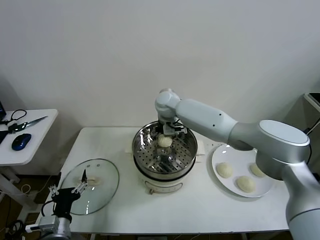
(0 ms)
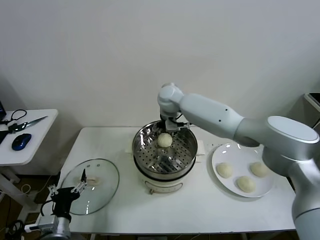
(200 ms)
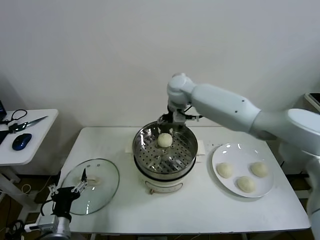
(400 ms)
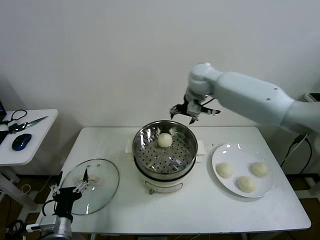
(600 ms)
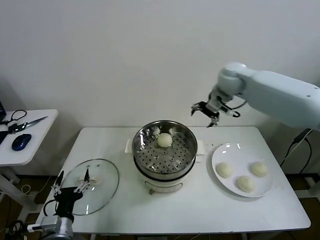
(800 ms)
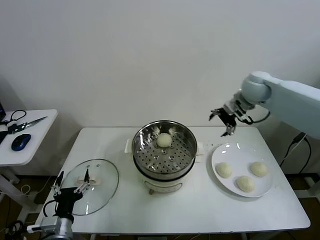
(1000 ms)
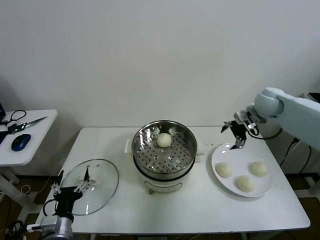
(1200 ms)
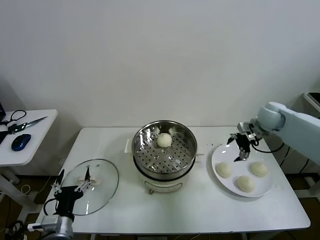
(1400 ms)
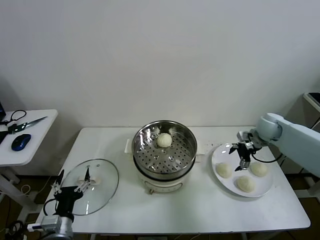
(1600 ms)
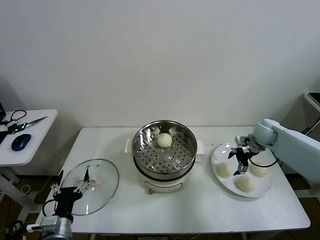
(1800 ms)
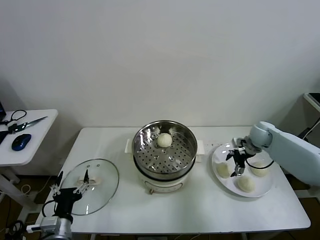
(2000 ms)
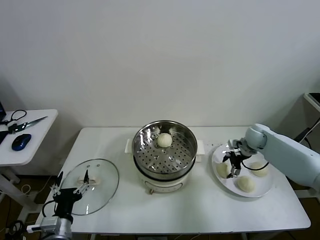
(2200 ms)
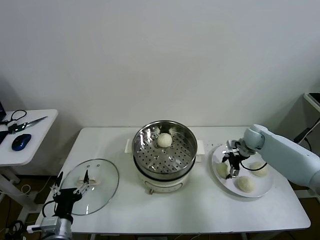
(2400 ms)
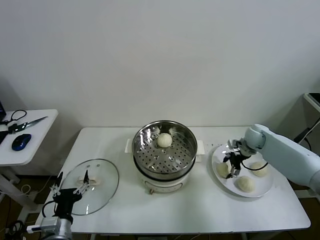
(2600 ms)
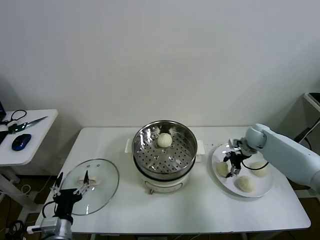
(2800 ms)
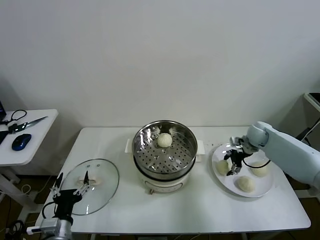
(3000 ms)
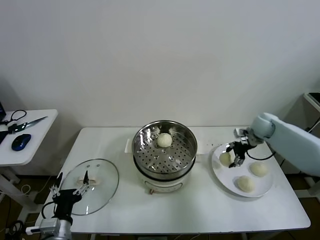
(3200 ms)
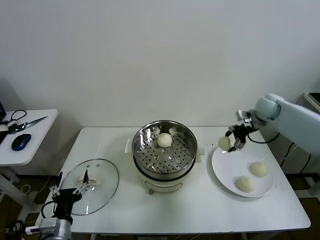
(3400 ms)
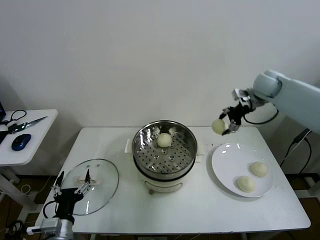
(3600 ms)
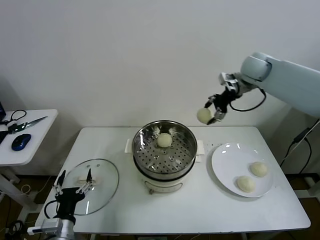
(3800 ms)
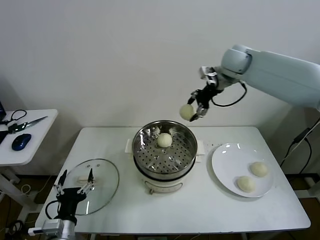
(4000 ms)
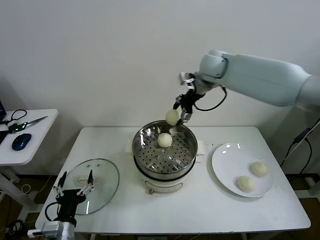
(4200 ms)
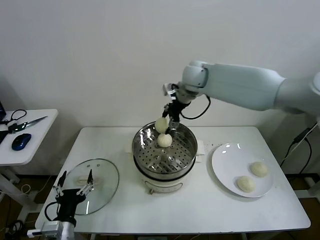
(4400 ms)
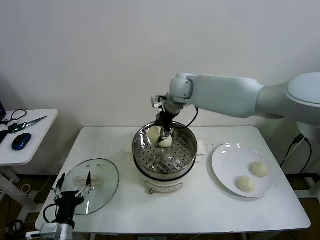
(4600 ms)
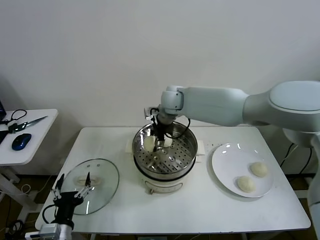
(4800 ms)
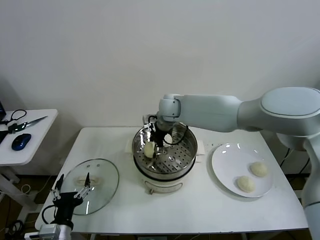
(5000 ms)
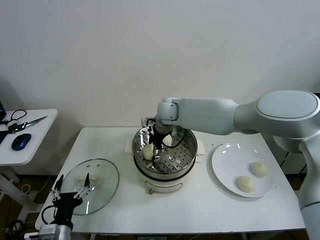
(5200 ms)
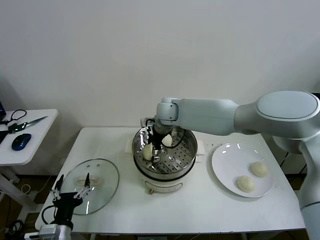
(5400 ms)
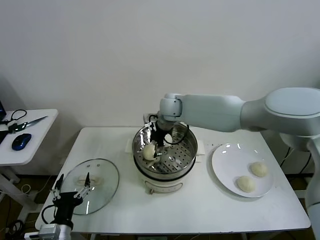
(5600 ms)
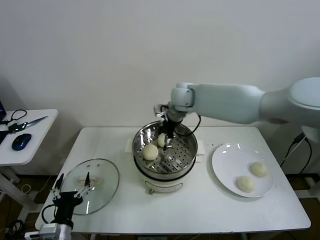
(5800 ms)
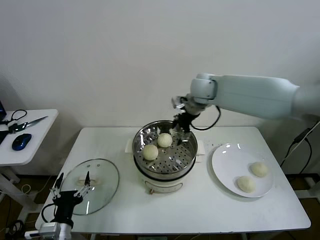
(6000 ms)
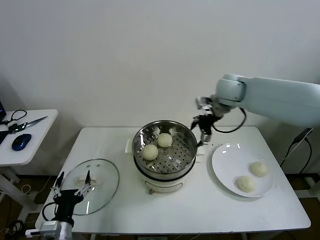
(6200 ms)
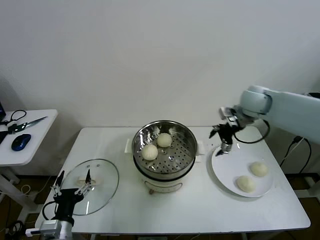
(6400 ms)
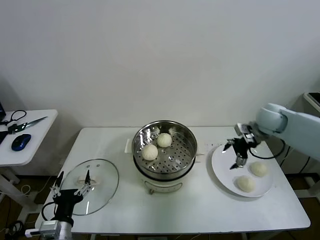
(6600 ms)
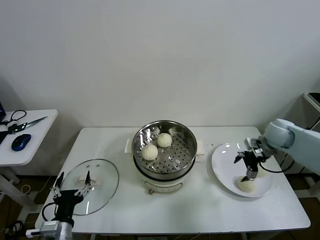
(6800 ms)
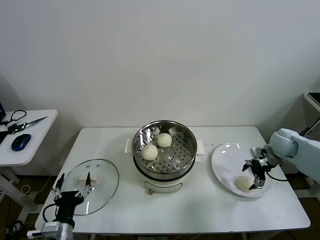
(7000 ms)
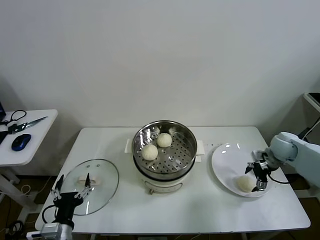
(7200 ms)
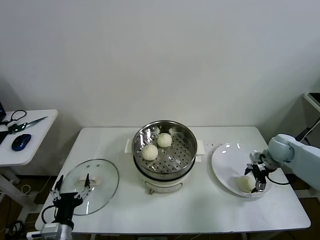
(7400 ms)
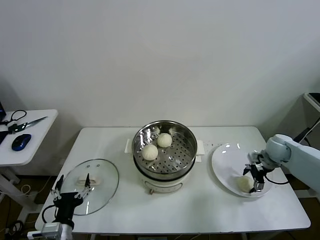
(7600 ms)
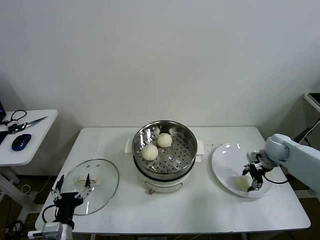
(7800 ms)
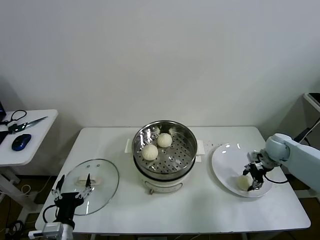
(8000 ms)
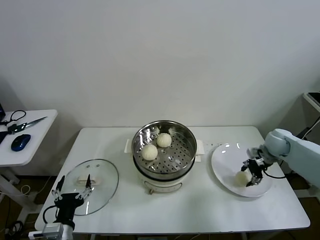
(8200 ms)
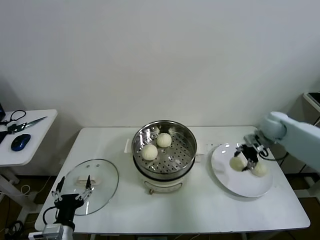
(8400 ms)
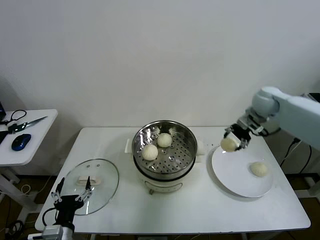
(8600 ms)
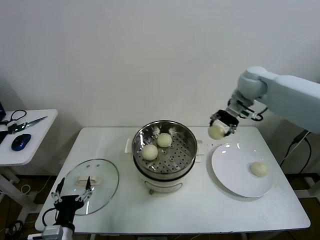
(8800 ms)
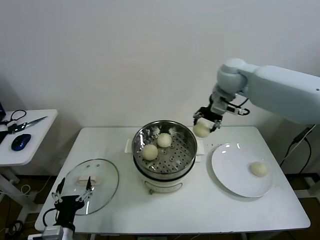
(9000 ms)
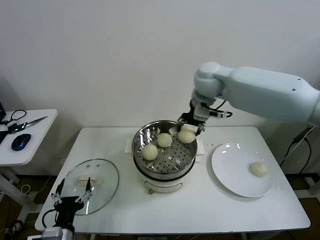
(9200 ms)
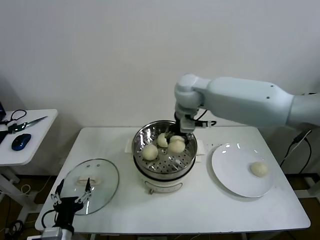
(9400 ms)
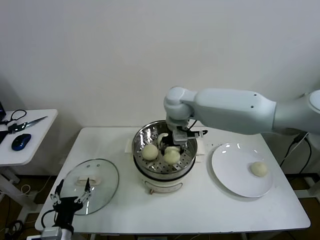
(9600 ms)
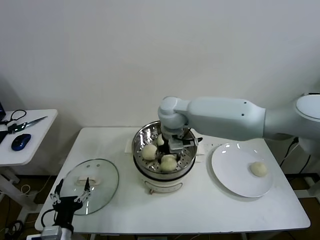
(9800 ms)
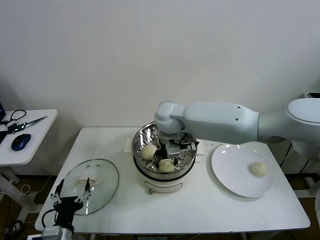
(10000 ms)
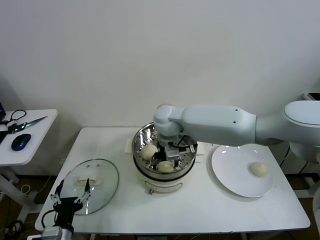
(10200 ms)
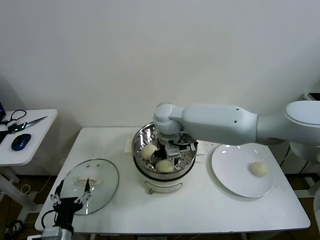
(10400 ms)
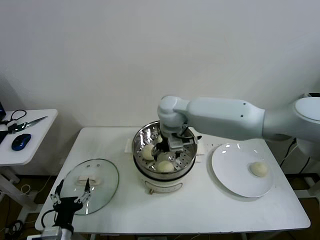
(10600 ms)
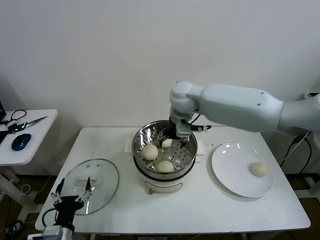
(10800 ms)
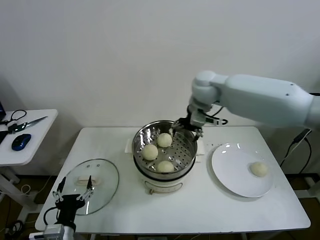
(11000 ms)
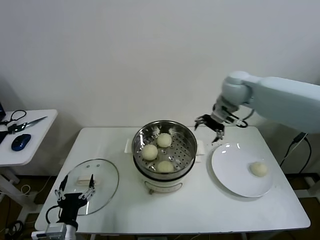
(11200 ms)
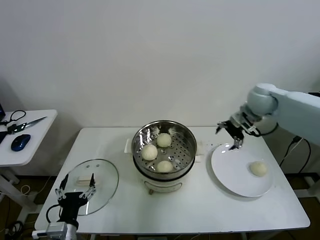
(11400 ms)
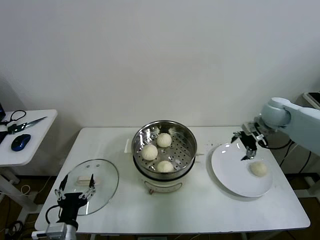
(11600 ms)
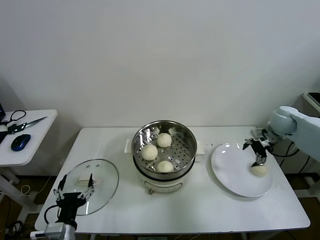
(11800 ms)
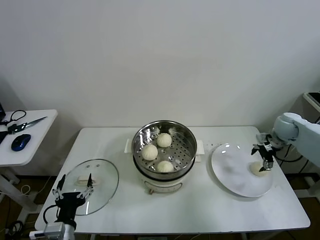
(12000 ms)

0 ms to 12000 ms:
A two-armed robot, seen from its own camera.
Task of the whole recording: take steamed baozi put them in steamer then cover it.
Step, 200 ms to 2600 ms: Grasp the baozi in the plate with right gripper.
Step, 2800 ms to 5400 ms: Place the baozi on the steamer with right gripper.
Step, 5600 ms to 8000 ms: Grasp the baozi in the plate with right gripper.
Step, 8200 ms to 10400 ms: Place the baozi on the steamer with right gripper.
0 ms to 1600 ms: The right gripper is displaced to the right by approximately 40 cm.
1600 ms to 3000 ms: The right gripper closes.
3000 ms to 4400 ms: The right gripper heads to the left and upward, covering some 35 cm.
4400 ms to 6000 ms: The right gripper is displaced to the right by approximately 5 cm, and opens.
6000 ms to 7600 ms: The right gripper moves to the right and downward, roughly 35 cm.
7600 ms to 9000 ms: The right gripper moves upward and to the left, some 35 cm, and closes up.
9000 ms to 10400 ms: The right gripper heads to the left and downward, covering some 20 cm, and opens its fingers.
10400 ms to 12000 ms: The right gripper moves to the right, about 40 cm.

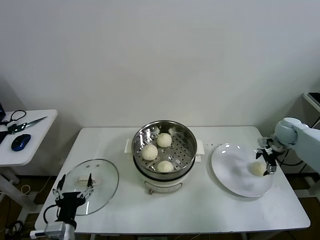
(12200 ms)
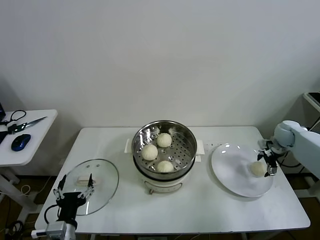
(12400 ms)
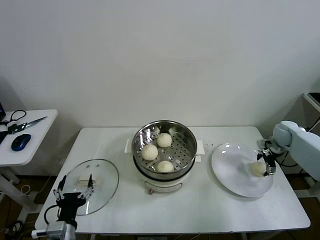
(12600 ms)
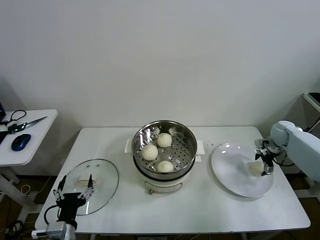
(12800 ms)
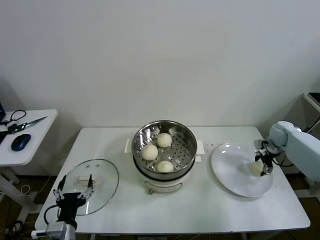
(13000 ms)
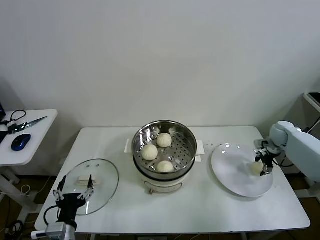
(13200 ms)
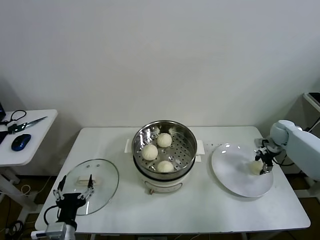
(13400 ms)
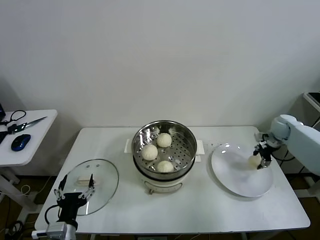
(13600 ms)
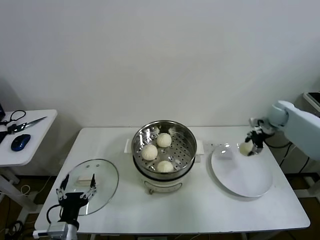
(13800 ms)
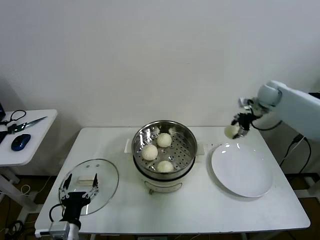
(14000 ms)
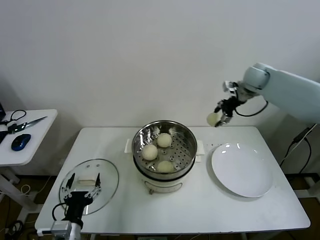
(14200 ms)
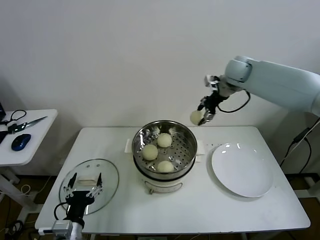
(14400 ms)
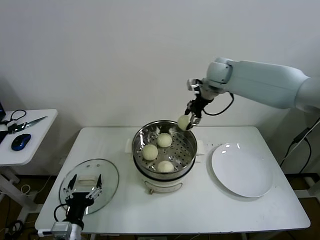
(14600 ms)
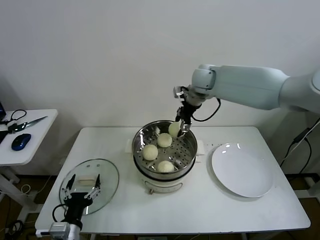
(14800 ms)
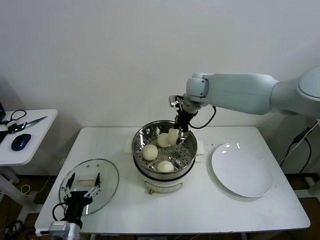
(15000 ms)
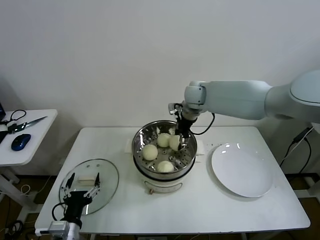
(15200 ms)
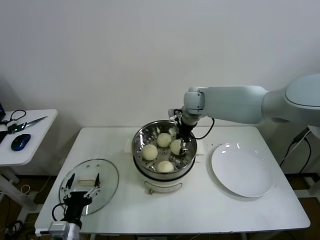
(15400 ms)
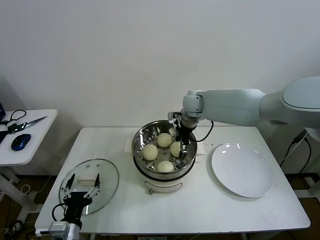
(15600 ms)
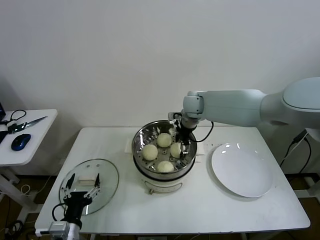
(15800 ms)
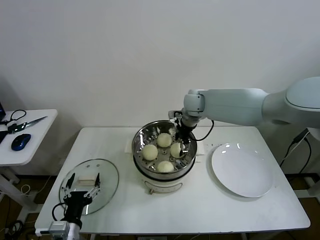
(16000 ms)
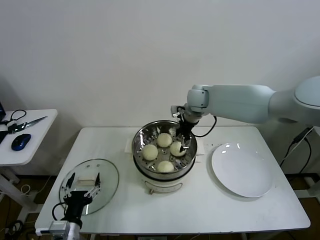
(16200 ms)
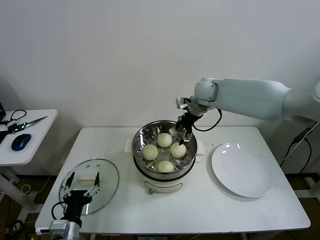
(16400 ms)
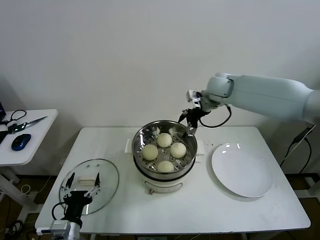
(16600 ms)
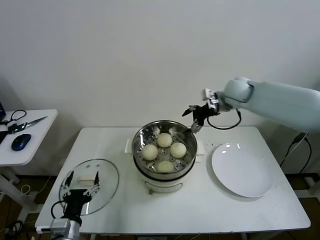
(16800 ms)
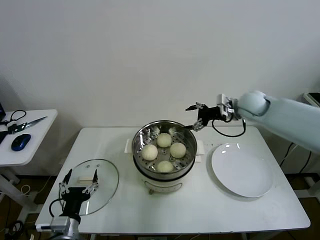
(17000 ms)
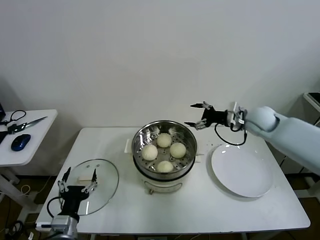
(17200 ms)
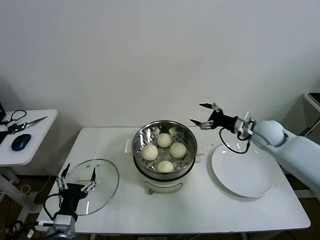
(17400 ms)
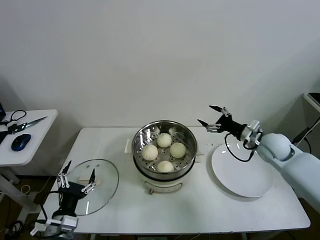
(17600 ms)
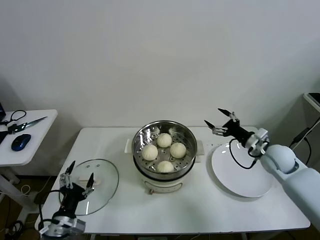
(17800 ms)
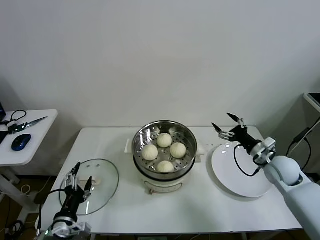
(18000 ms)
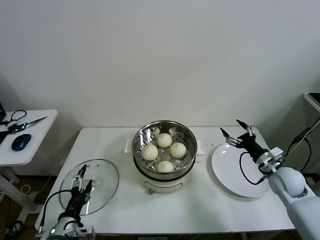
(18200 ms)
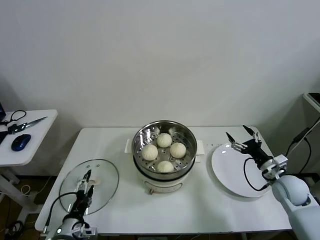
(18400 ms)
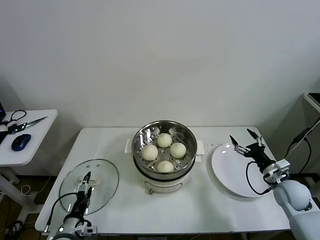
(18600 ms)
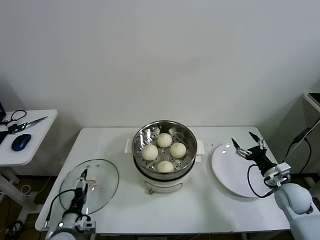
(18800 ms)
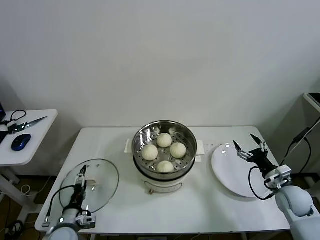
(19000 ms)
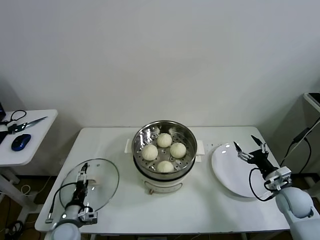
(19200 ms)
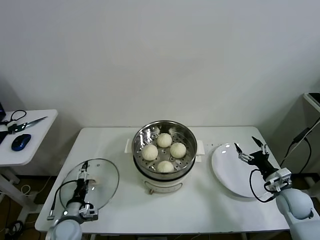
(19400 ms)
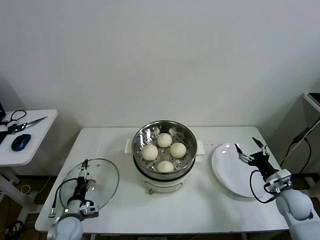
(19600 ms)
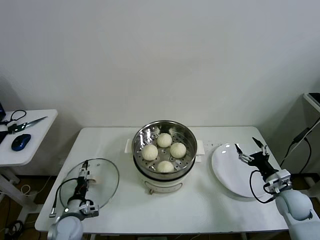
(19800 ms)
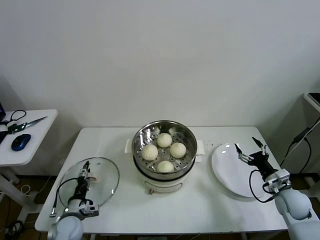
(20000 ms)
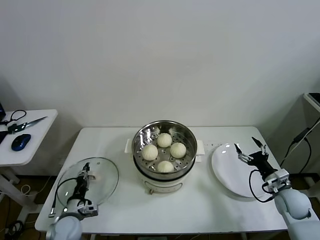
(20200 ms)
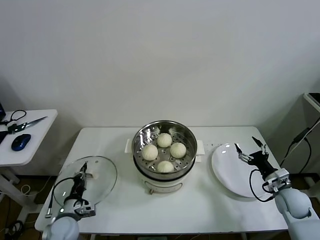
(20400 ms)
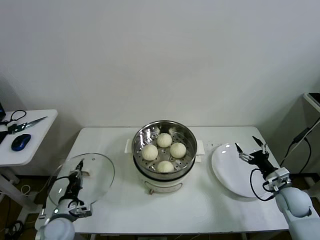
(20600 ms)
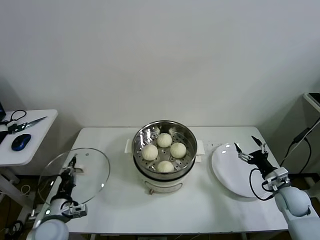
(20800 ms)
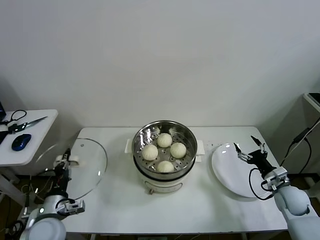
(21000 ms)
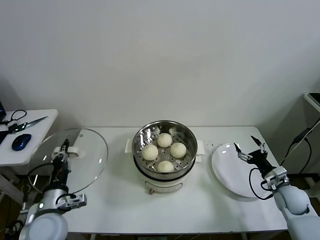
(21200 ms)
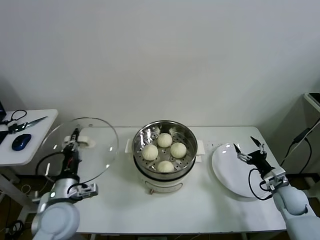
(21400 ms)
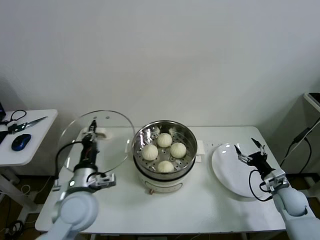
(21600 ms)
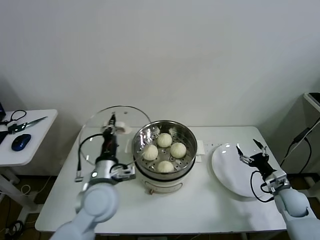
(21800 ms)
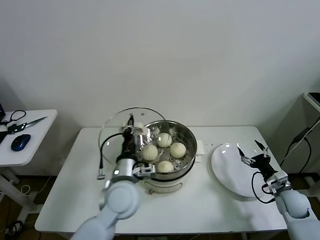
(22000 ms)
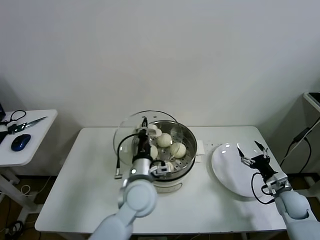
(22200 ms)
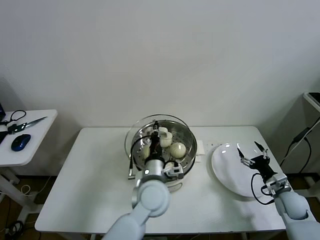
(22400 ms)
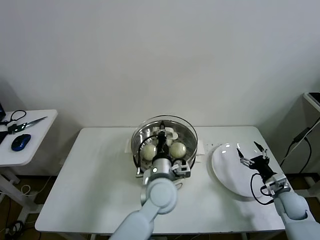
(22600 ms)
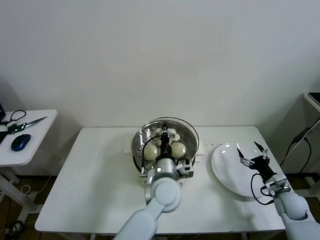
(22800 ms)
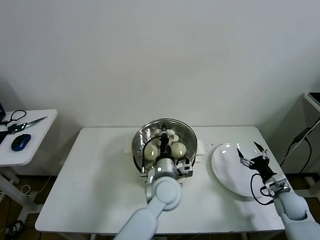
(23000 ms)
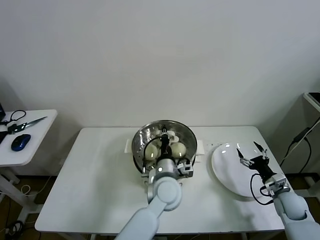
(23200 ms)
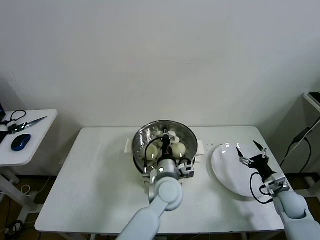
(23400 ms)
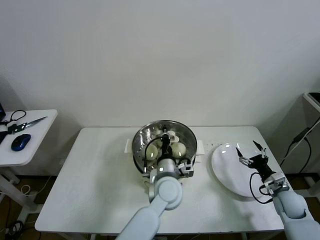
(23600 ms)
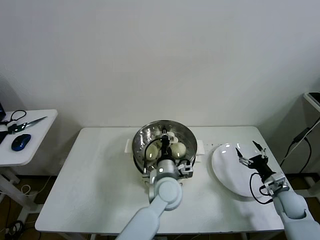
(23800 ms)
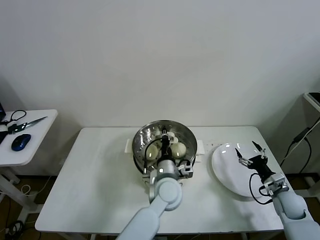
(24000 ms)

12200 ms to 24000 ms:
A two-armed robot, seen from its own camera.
Task of the whole recording: take steamed baozi put them in steamer then cover it.
Step, 13400 ms to 16000 ms: Place the baozi on the steamer with right gripper.
Step, 16400 ms to 20400 ms: Grasp the pot lid with left gripper.
12200 ms to 13600 ms: The right gripper closes.
13600 ms to 15200 ms: The right gripper heads to the left, covering about 35 cm.
15200 ms to 16600 ms: The right gripper goes about 5 cm to the right, and opens up.
16600 ms to 18200 ms: The right gripper travels downward, backward and to the right by roughly 40 cm.
18200 ms to 19600 ms: The left gripper goes some 10 cm downward and forward. Meanwhile the right gripper shifts approximately 10 cm downward and backward.
19600 ms to 21000 ms: The left gripper moves upward, about 10 cm, and closes.
21000 ms to 22600 ms: The left gripper moves to the right, about 30 cm.
22600 ms to 24000 ms: The left gripper ends up roughly 5 cm from where it was.
